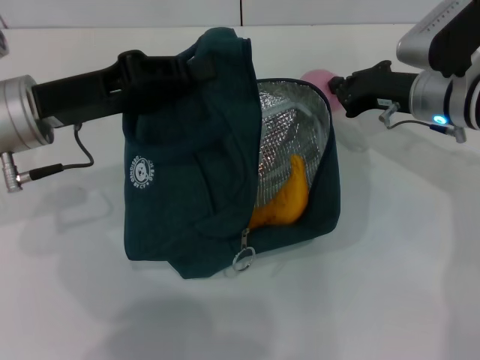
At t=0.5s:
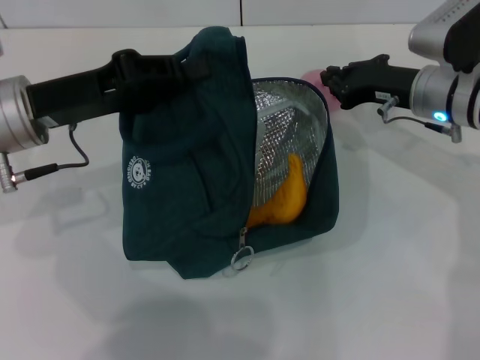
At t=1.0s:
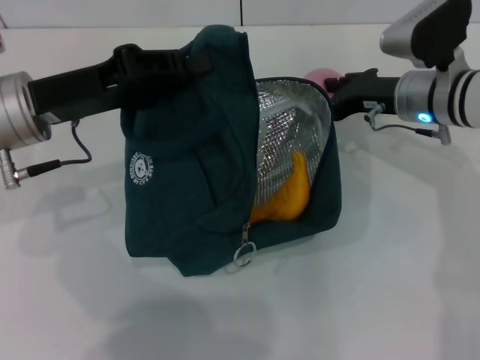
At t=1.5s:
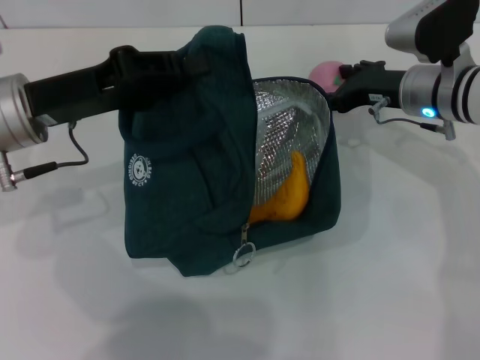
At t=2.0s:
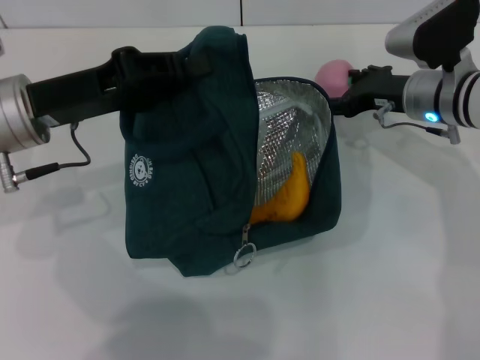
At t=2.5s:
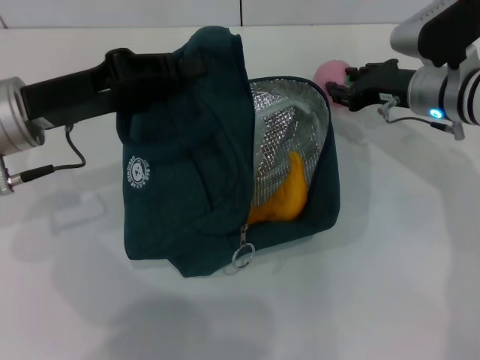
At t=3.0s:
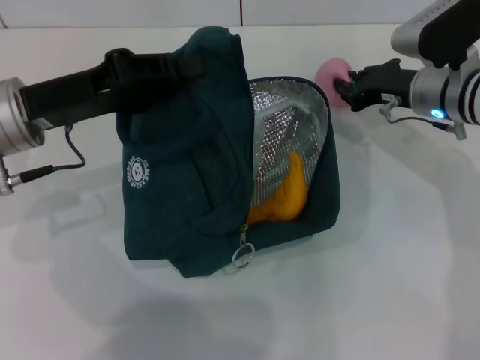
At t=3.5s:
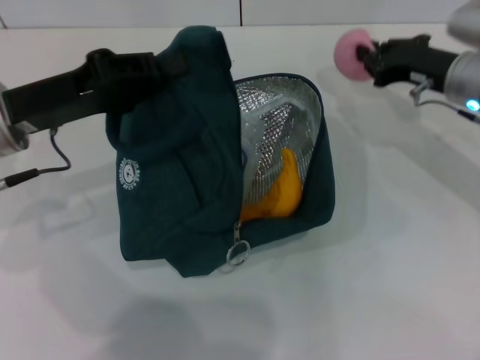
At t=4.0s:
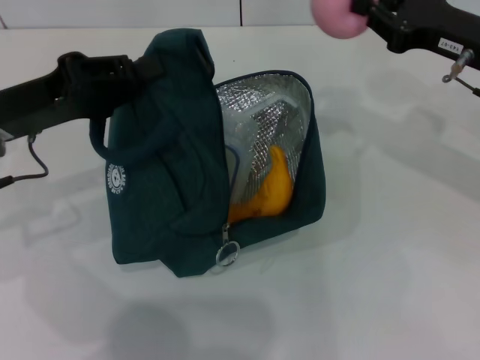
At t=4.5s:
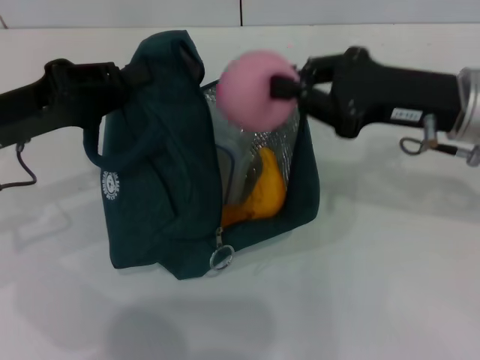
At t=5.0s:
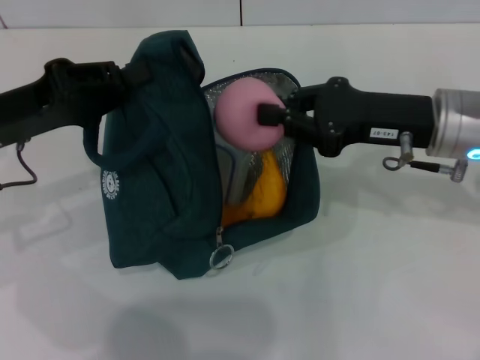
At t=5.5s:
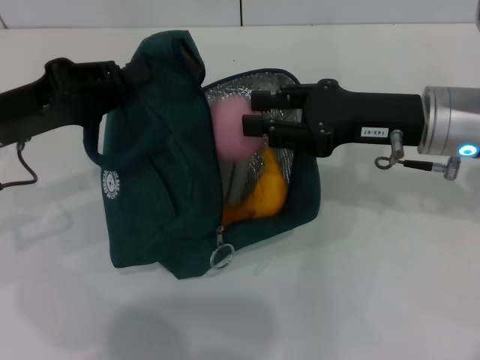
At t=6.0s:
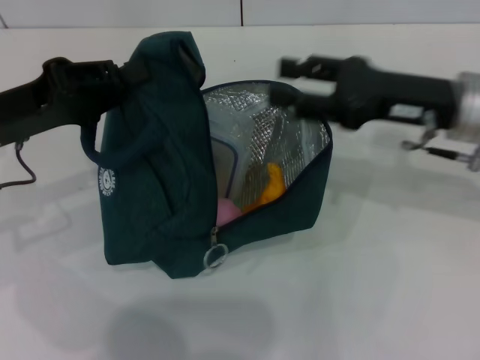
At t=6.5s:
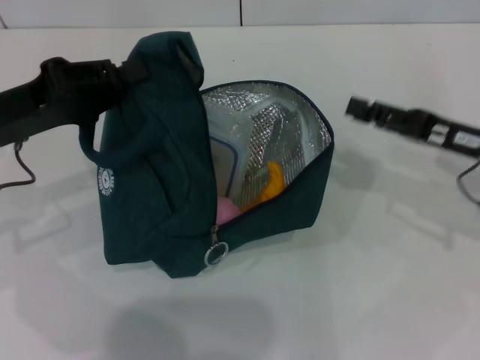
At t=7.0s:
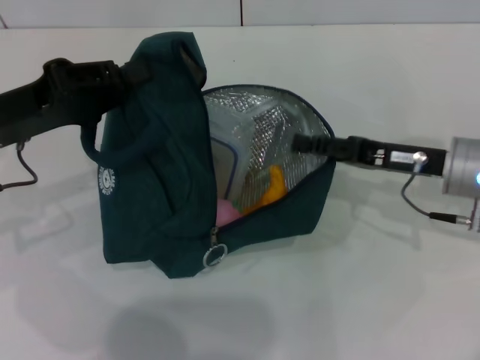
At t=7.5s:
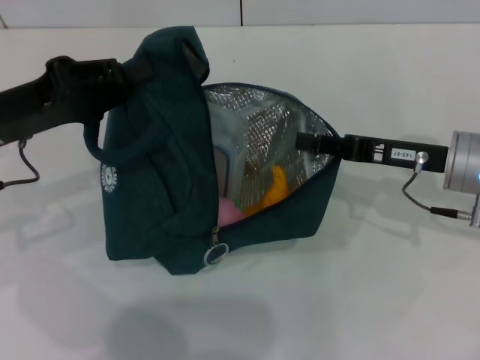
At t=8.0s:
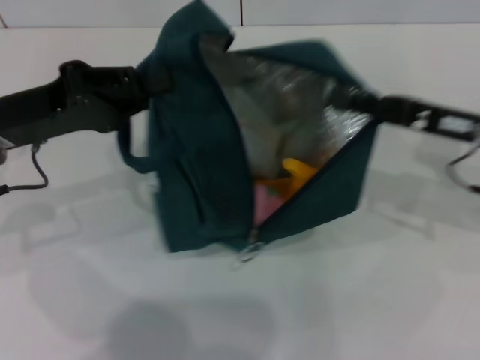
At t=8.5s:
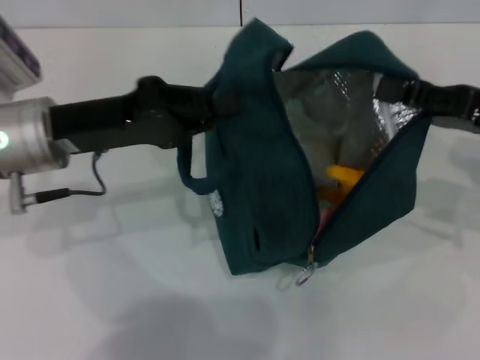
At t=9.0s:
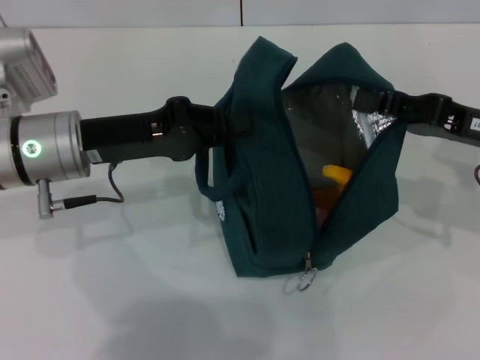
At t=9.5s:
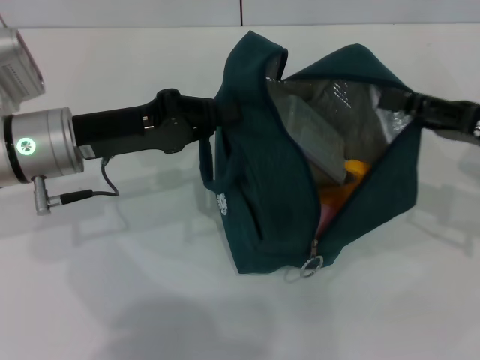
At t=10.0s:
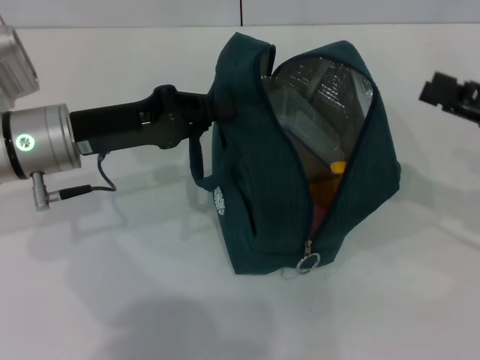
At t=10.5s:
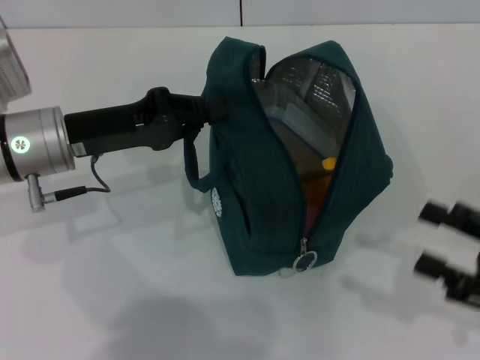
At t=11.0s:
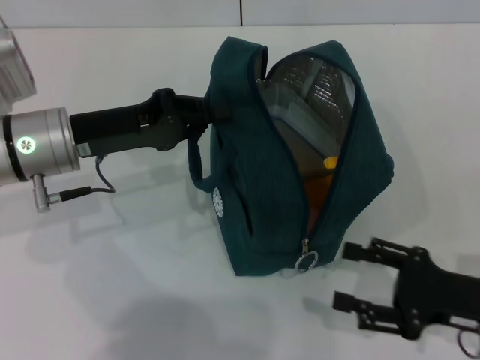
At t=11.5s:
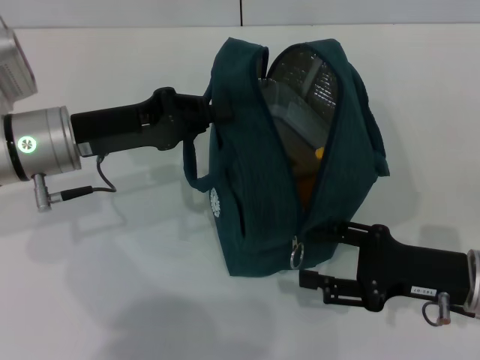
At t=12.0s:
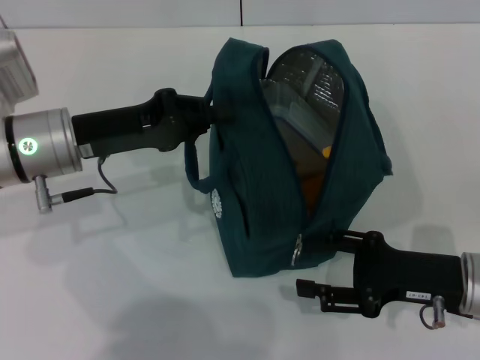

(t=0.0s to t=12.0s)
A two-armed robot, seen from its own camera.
Step, t=0.0s - t=2.5s: Grab the peach with your right hand.
Step, t=3.0s - t=5.5s: Secure the lunch bag with your left hand.
Step, t=6.0s - t=9.5s: Hold the lunch bag with your right hand.
t=0.0s - t=2.0s: The right gripper opens.
t=2.0s - t=4.0s: The right gripper goes about 10 cm upward, backward and to the right, and closes its fingers.
t=4.0s - t=6.0s: The right gripper changes place by roughly 5 cm, and opens.
t=6.0s - t=8.0s: The right gripper closes up.
t=8.0s - t=10.0s: The right gripper moves to the right, about 5 cm, and opens its fingers. Meanwhile the left gripper moves some 5 cm.
t=10.0s - t=12.0s: The right gripper travels downward and to the left by roughly 15 cm.

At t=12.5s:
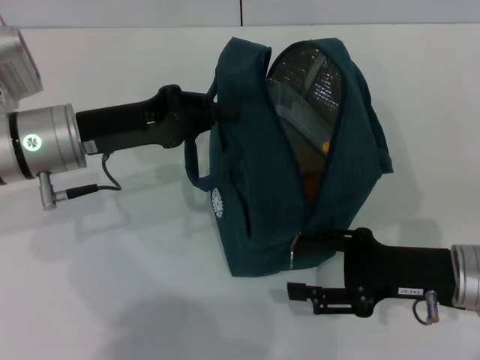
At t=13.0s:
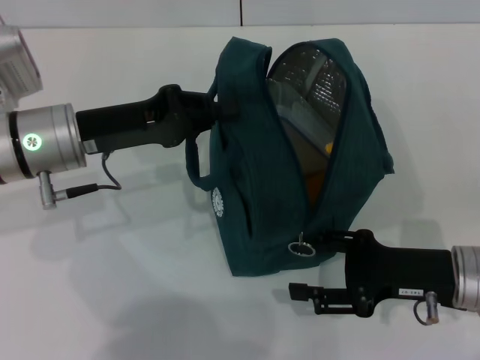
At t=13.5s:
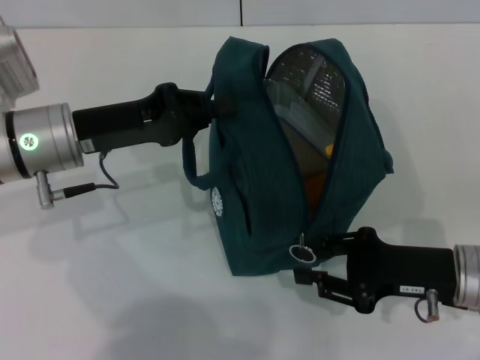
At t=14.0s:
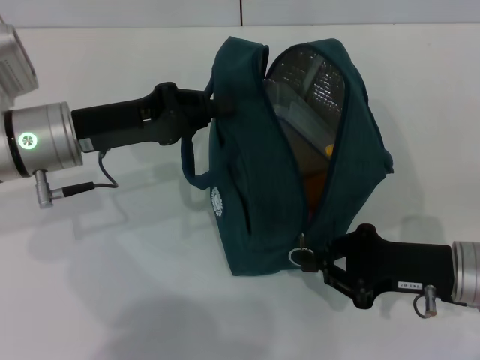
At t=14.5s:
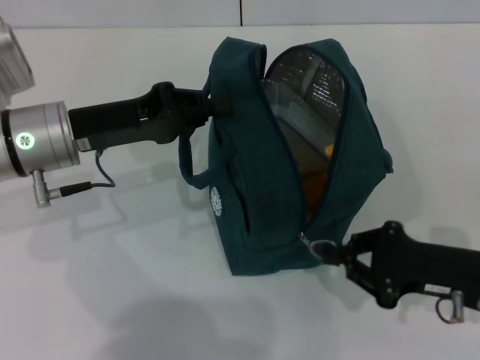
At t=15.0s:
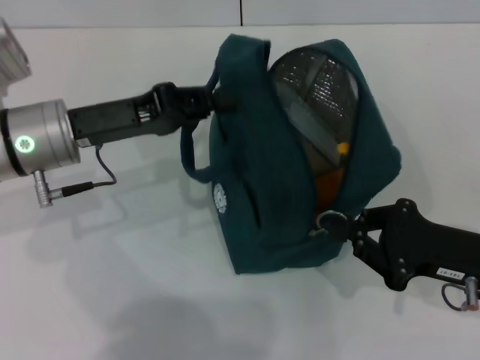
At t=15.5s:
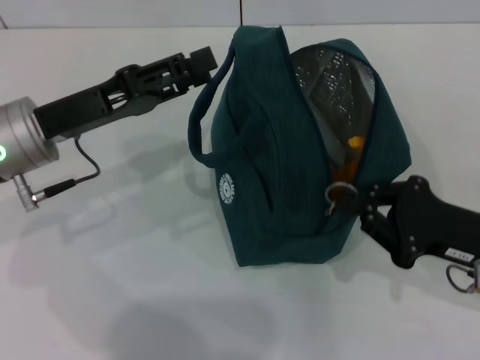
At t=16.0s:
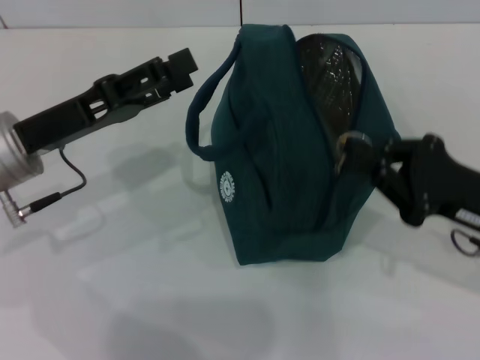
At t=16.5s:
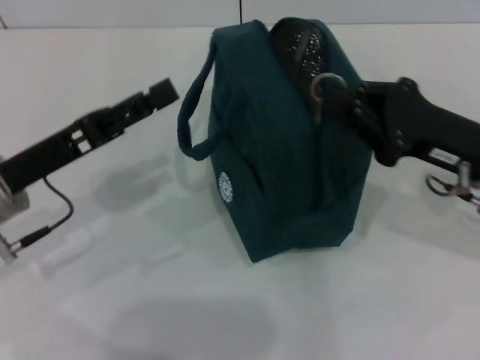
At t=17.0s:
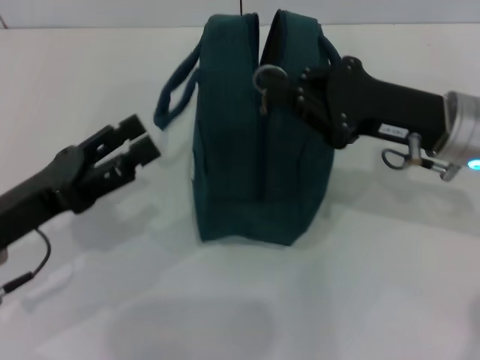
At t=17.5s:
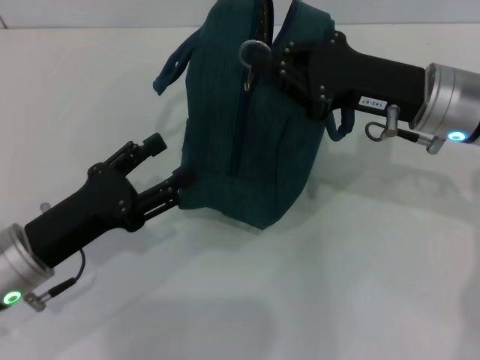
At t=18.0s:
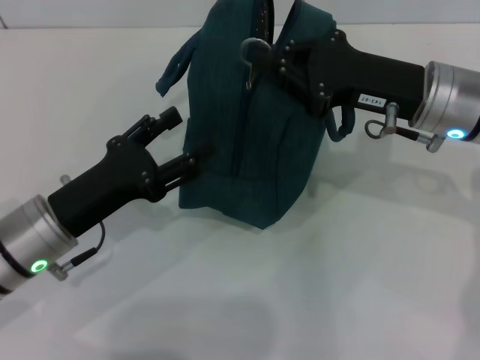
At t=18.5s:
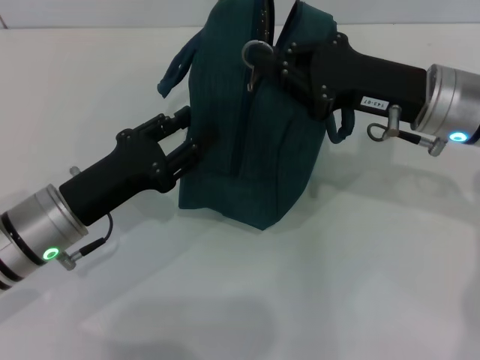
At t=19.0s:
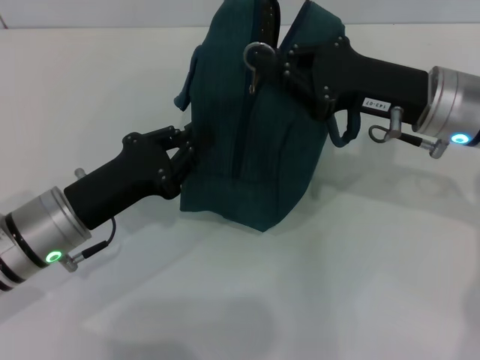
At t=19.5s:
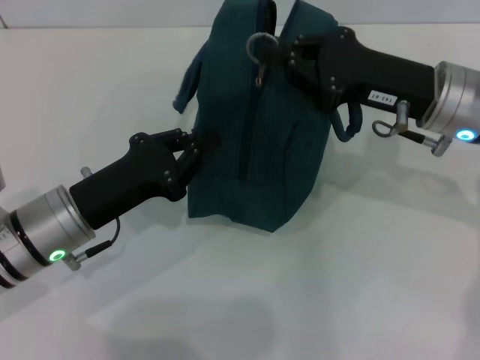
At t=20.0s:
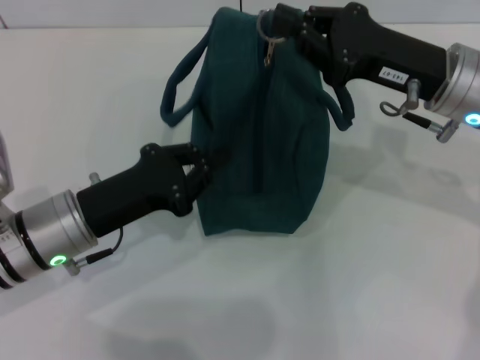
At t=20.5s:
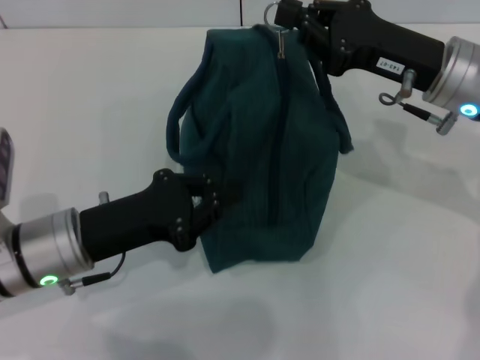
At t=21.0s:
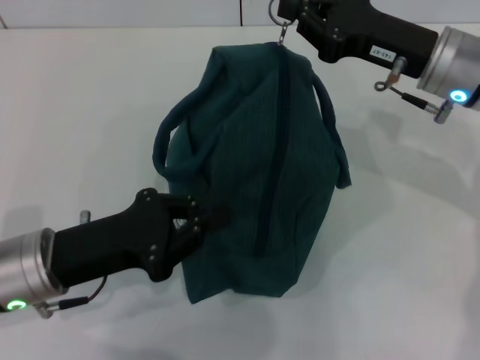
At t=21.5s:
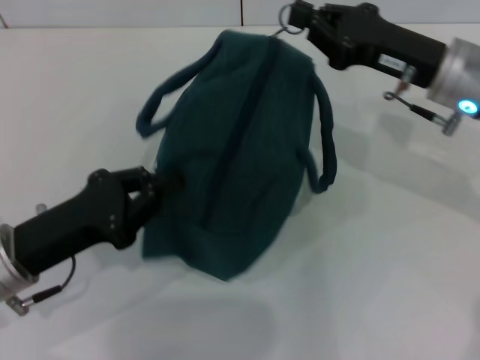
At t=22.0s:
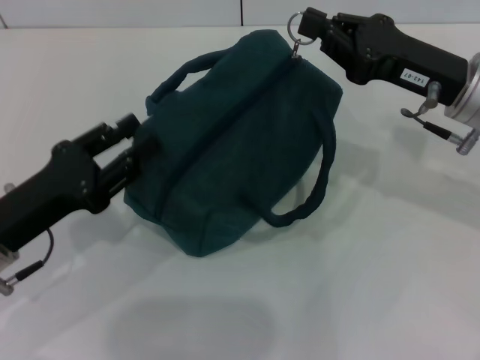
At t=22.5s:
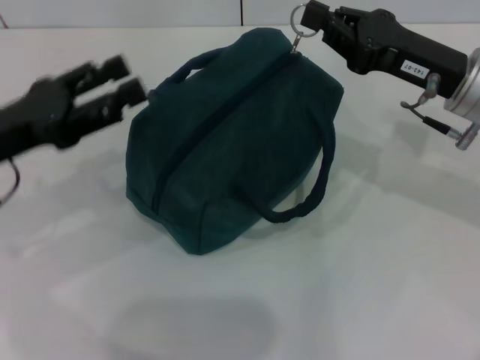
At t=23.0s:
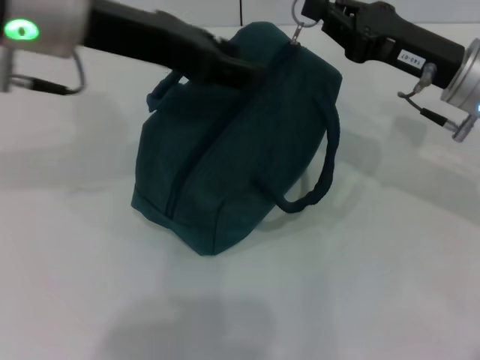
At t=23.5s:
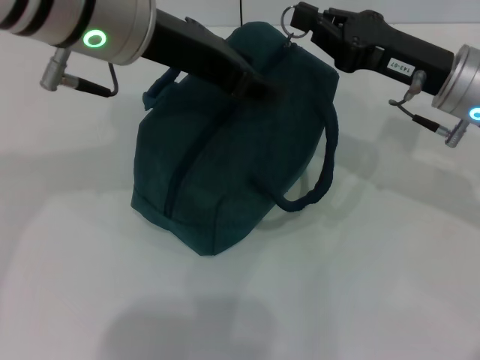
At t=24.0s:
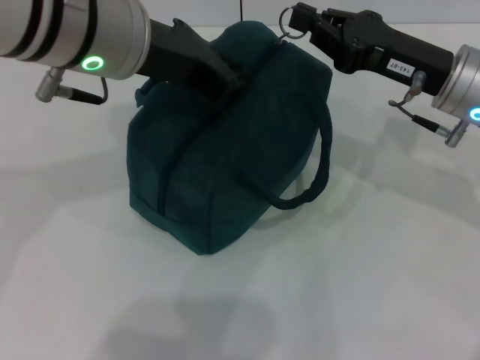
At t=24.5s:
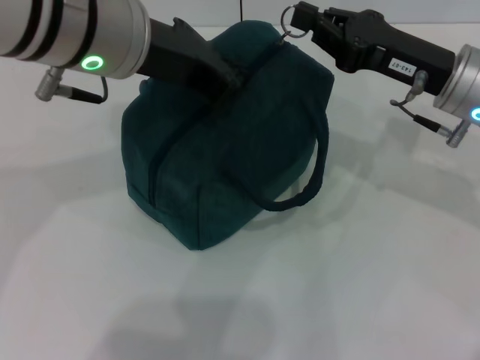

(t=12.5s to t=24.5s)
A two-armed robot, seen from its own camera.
Step, t=12.5s - t=15.0s: Hold the lunch bag with your left hand.
t=12.5s - t=14.5s: The right gripper closes its fingers.
t=14.5s - t=16.5s: The right gripper heads upward and forward, covering approximately 10 cm. The left gripper heads backward, covering roughly 5 cm, and opens.
t=16.5s - t=18.5s: The right gripper changes place by some 10 cm. Meanwhile the left gripper moves some 5 cm.
t=18.5s - t=20.5s: The left gripper closes its fingers.
t=20.5s - t=22.5s: The left gripper travels upward and to the left by roughly 10 cm, and opens up.
t=22.5s - t=24.5s: The left gripper is displaced to the right and upward by roughly 20 cm, and closes up.

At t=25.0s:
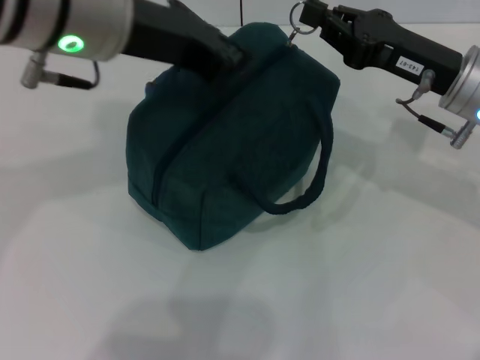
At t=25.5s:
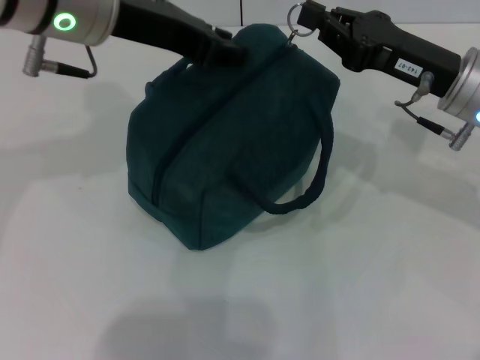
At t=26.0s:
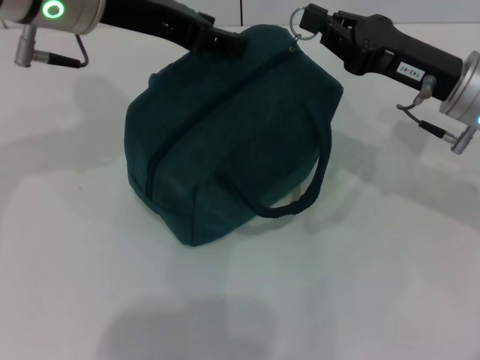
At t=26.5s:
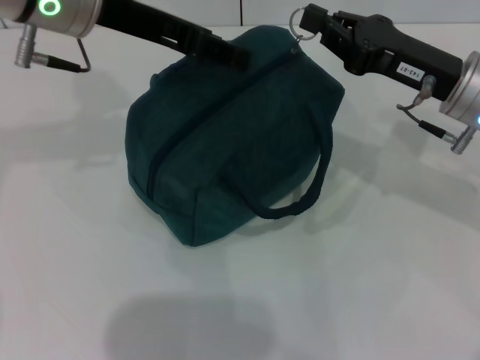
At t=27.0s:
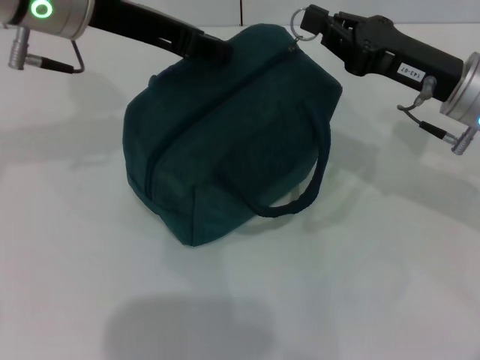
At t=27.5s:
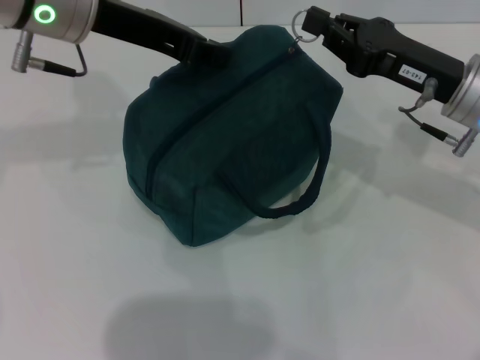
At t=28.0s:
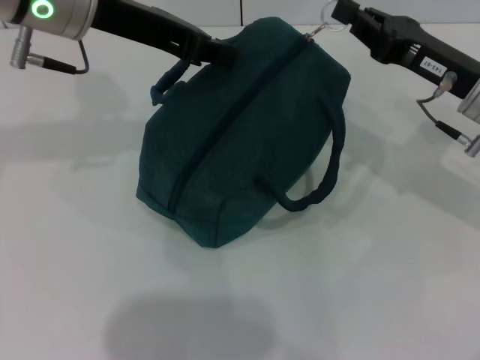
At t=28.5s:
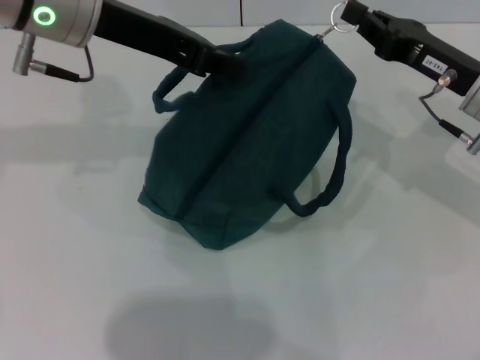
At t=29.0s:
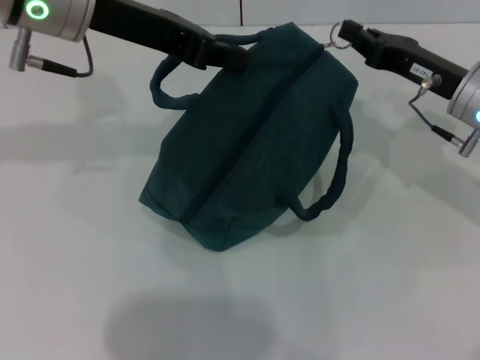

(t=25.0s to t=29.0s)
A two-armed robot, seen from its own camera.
t=25.0s - t=27.0s: The left gripper heads forward, covering approximately 5 cm, and opens.
t=27.0s - t=29.0s: The left gripper closes.
